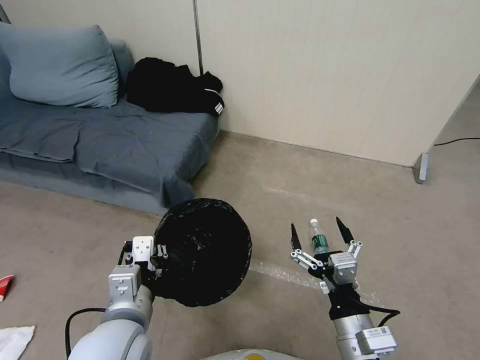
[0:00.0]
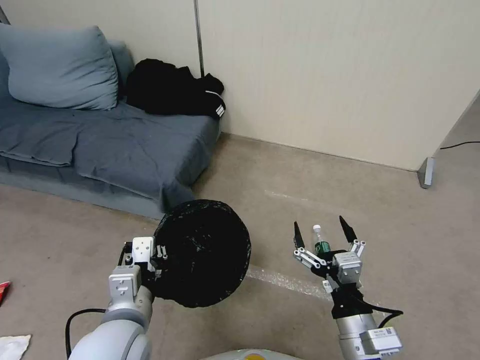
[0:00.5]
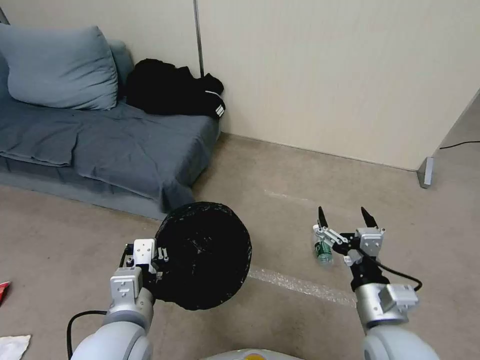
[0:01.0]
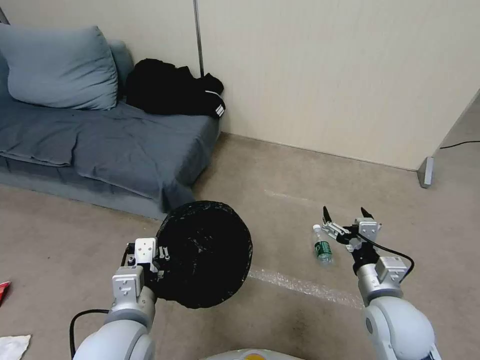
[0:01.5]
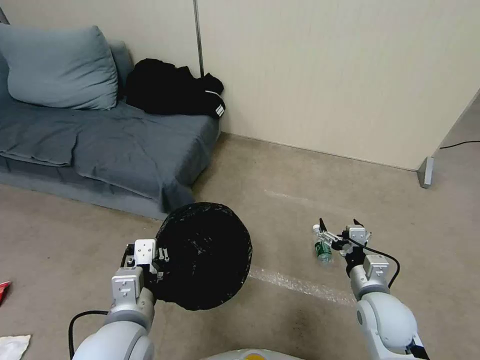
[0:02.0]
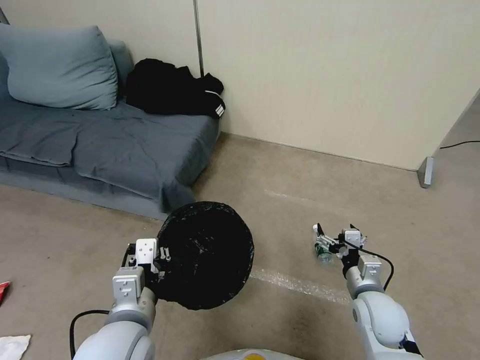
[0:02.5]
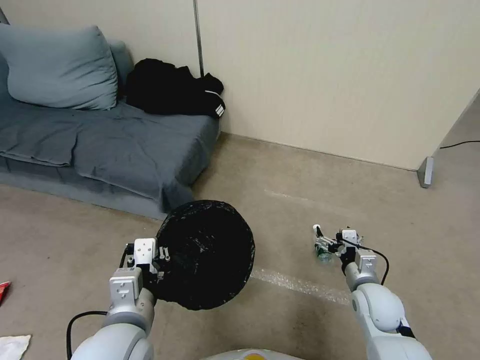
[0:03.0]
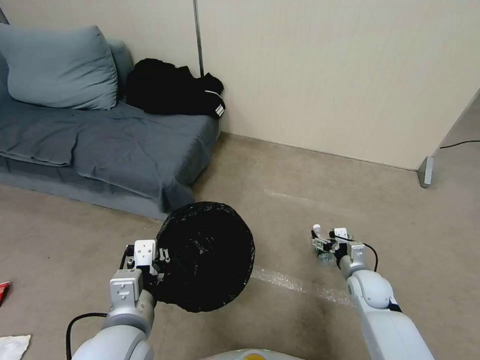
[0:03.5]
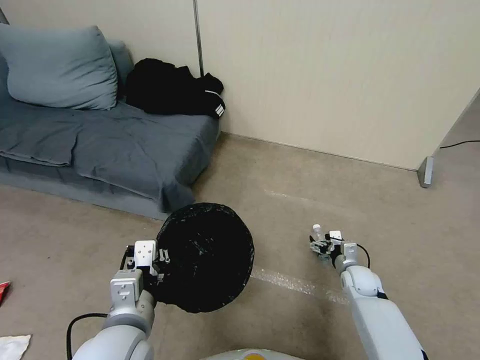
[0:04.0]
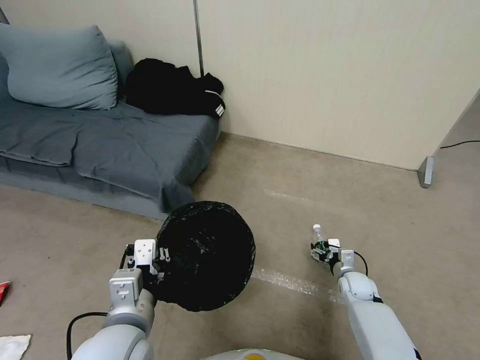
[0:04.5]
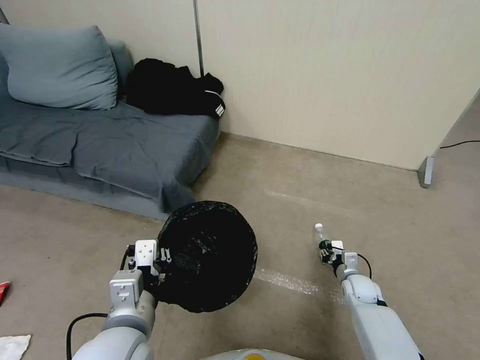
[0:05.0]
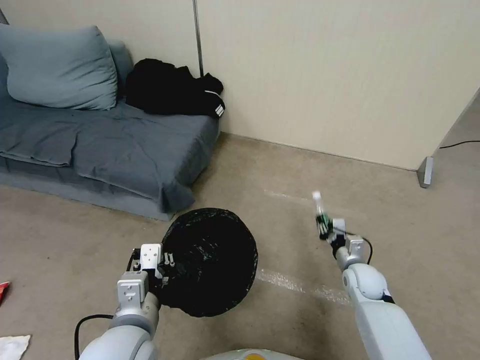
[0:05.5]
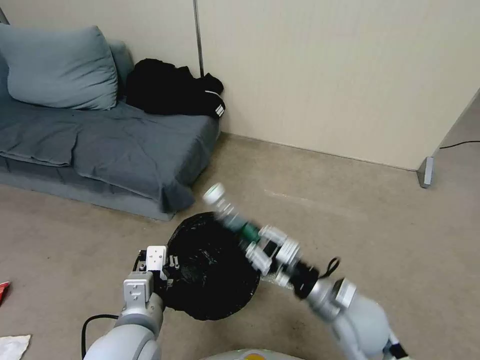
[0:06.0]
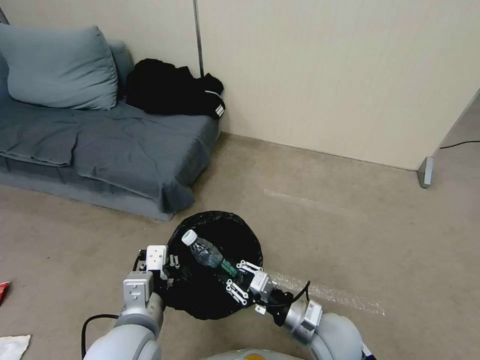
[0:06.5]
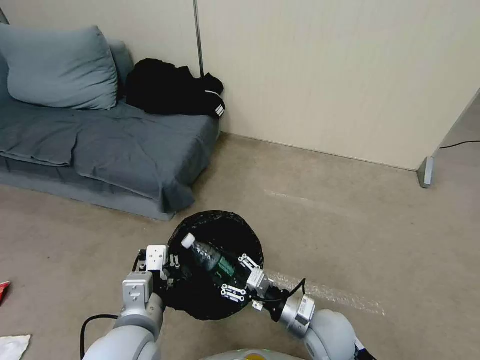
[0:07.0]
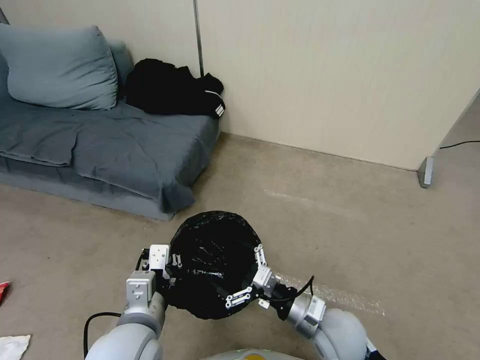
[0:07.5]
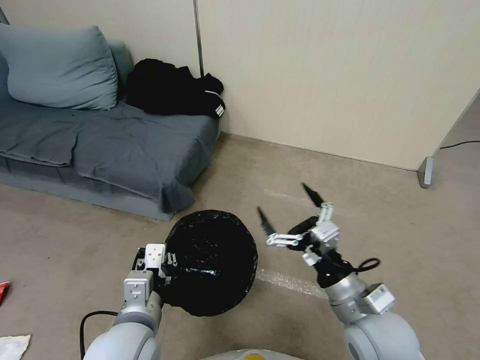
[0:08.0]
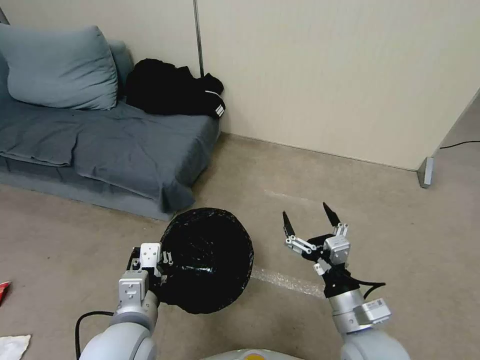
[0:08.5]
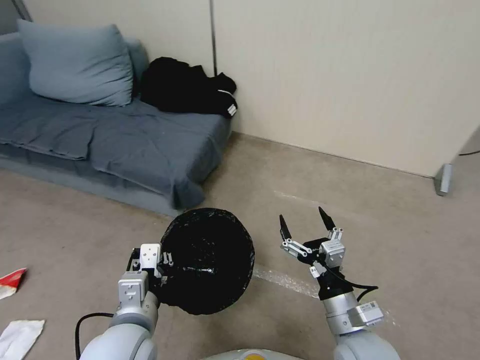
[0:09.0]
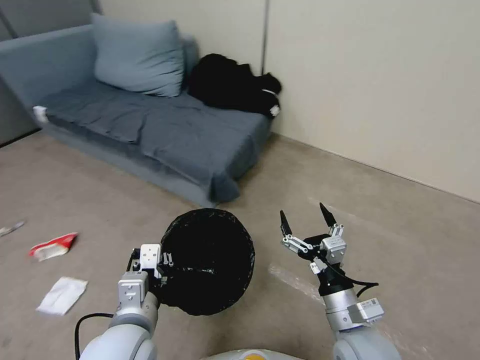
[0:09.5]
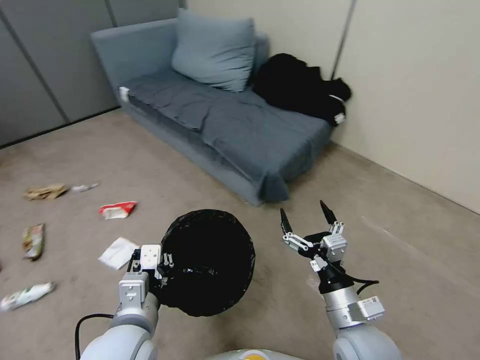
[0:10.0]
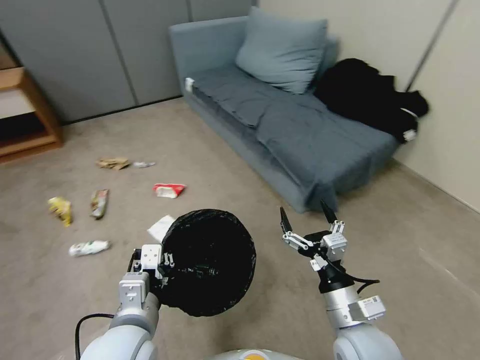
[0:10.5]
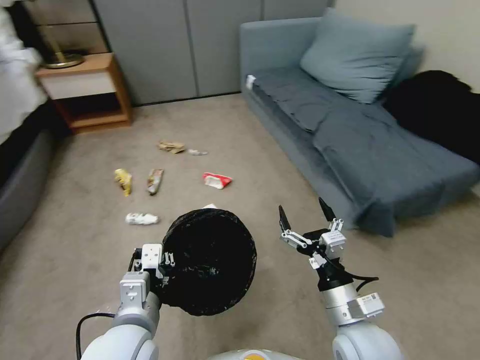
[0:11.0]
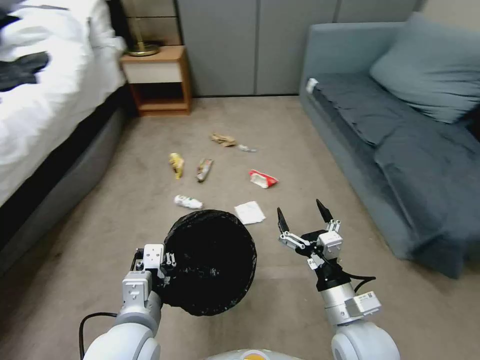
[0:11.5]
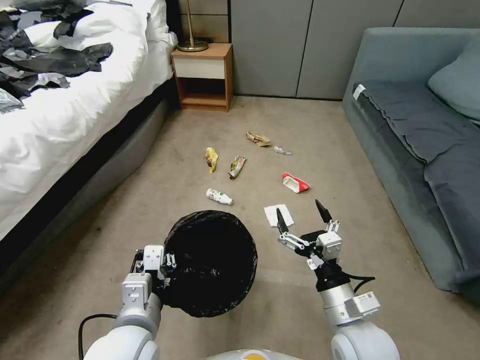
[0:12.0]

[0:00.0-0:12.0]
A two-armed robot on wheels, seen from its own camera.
Task of the whole recording: Pick up the trash bin, then pick up the garbage from the floor and place it into the trash bin.
0:00.0 to 0:02.0: The right gripper goes approximately 15 cm forward, to the right and downward.
0:02.0 to 0:04.0: The right gripper is displaced downward and forward by roughly 20 cm.
0:04.0 to 0:06.0: The right gripper travels upward, backward and to the left by some 25 cm, and closes up.
0:06.0 to 0:08.0: The right gripper is displaced upward by about 5 cm, and opens.
0:08.0 to 0:10.0: The right gripper shifts approximately 5 cm downward.

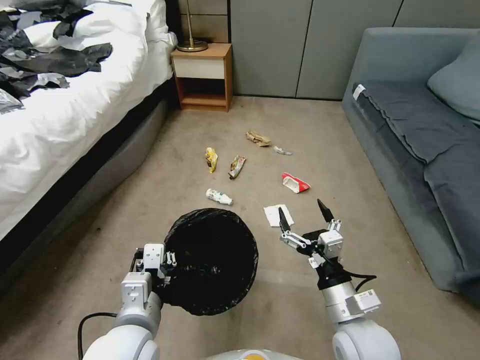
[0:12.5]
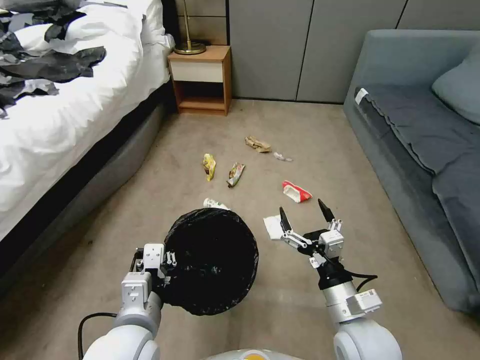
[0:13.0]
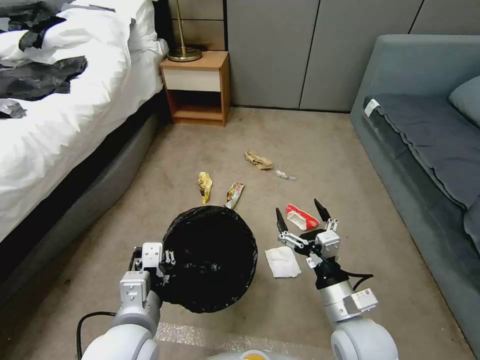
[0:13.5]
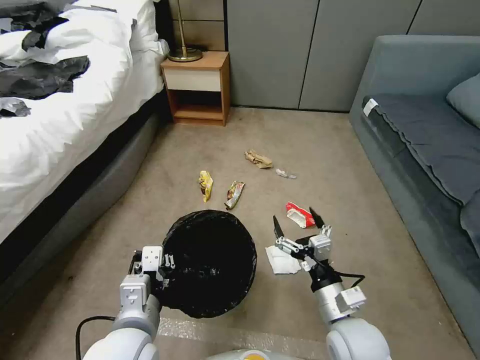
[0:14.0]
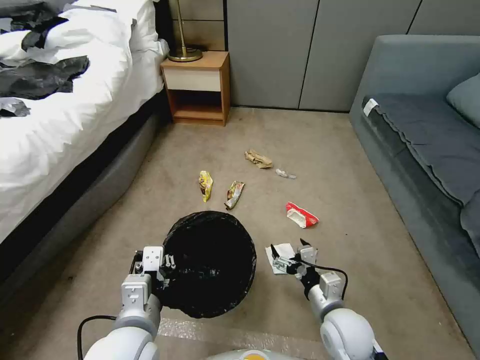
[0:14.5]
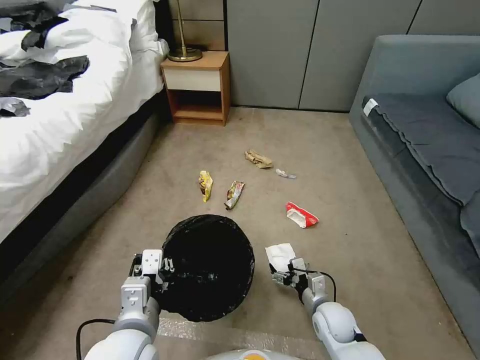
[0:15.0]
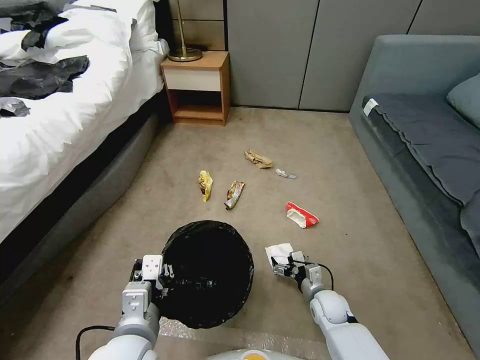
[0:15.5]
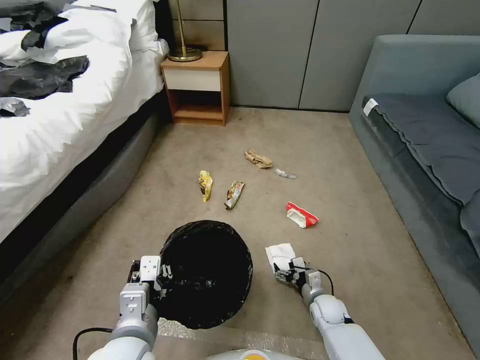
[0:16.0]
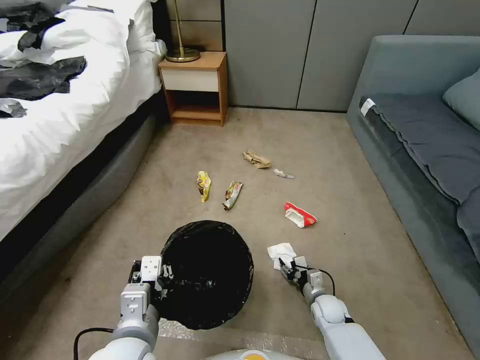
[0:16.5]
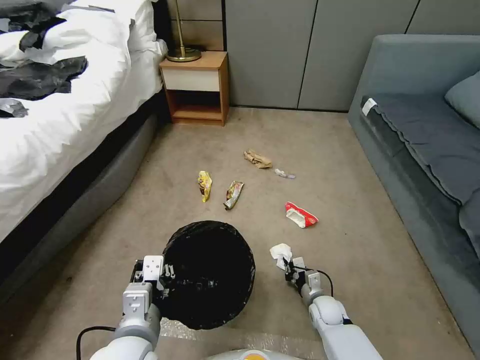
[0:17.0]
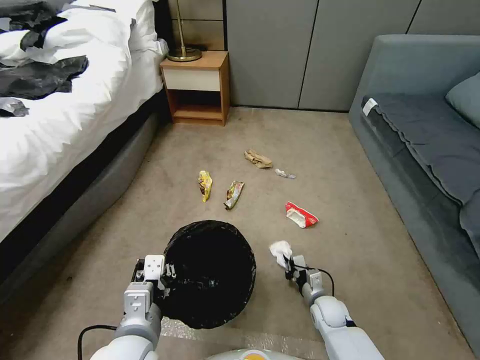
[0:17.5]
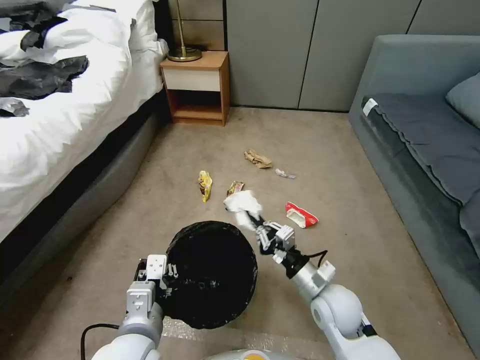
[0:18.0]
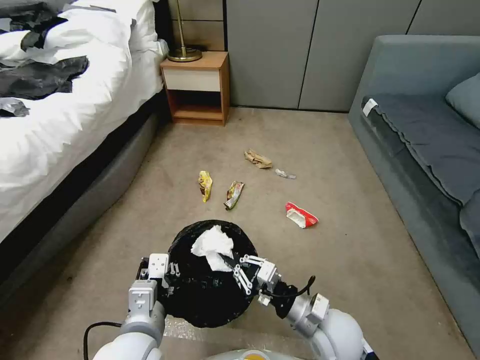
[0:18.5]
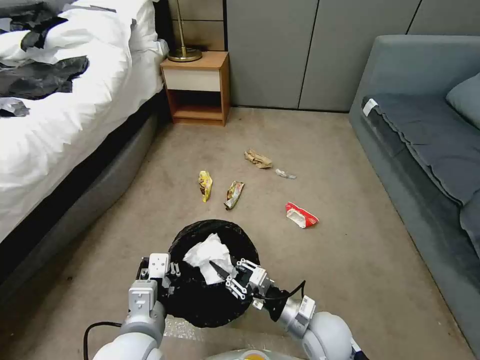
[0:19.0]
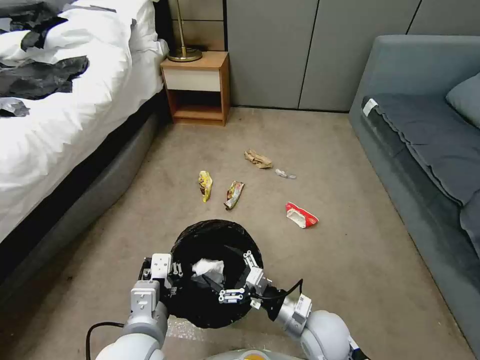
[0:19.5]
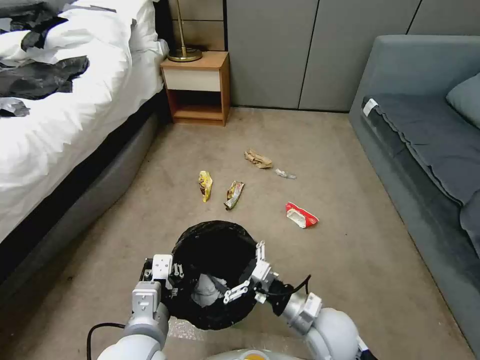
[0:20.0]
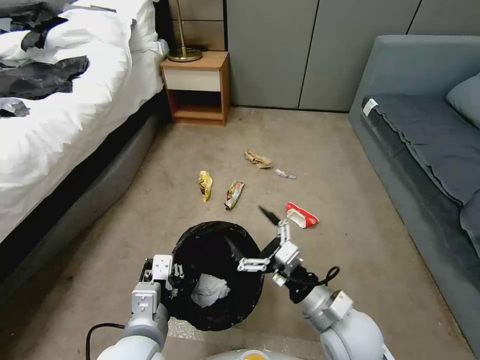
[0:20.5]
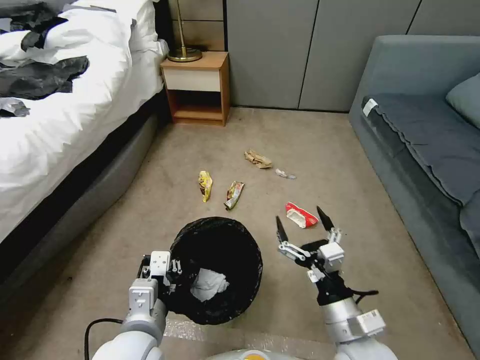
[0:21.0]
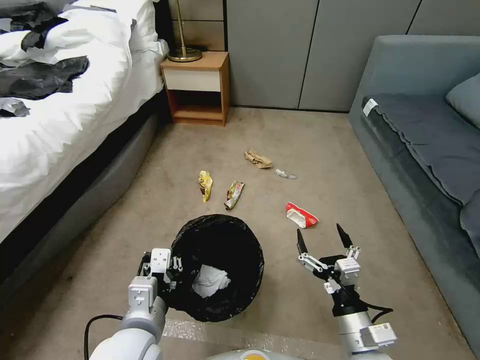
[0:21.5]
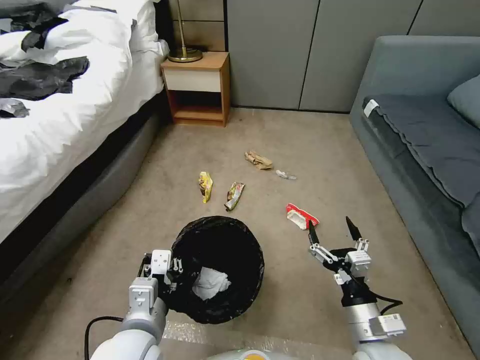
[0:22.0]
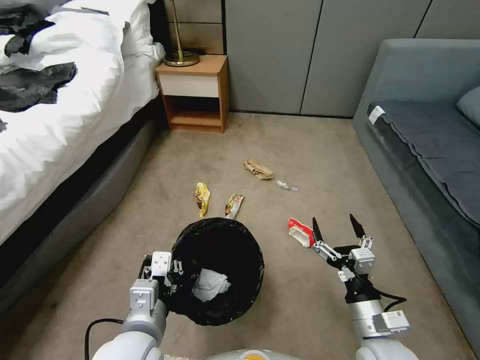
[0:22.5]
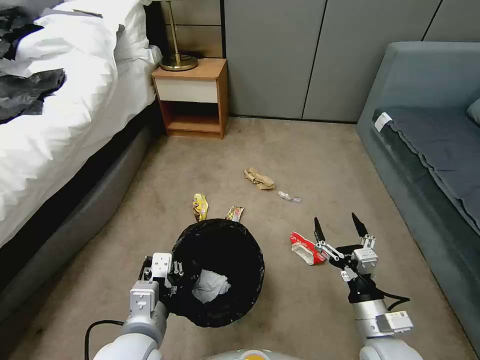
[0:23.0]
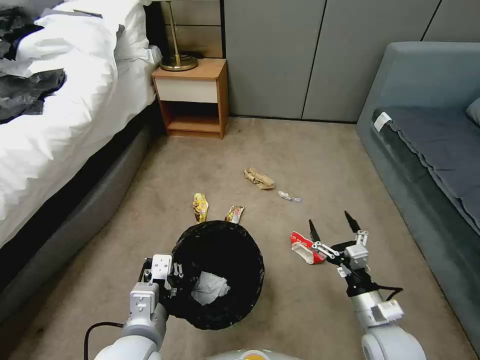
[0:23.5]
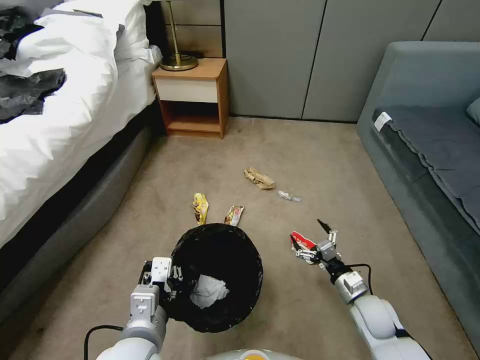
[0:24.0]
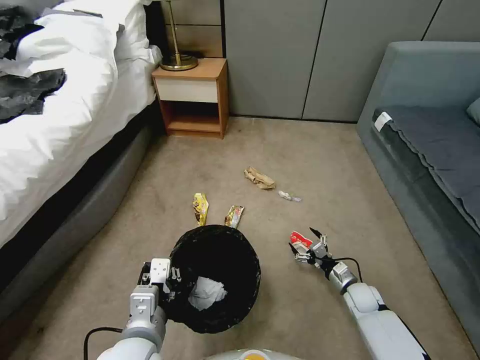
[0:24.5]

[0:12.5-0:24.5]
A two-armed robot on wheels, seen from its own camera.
Task of the whole recording: Pick up the trash bin, then pick up the garbage from the floor and place it into the trash bin.
0:12.5 to 0:14.5: The right gripper shifts about 10 cm downward.
0:14.5 to 0:16.5: The right gripper goes roughly 20 cm downward and forward, and closes its fingers.
0:16.5 to 0:18.5: The right gripper moves upward and backward, about 25 cm, and closes its fingers.
0:18.5 to 0:20.5: The right gripper moves upward, roughly 5 cm, and opens.
0:20.5 to 0:22.5: The right gripper shifts roughly 5 cm to the right.
0:22.5 to 0:24.5: The right gripper heads downward, forward and to the right, covering about 30 cm.

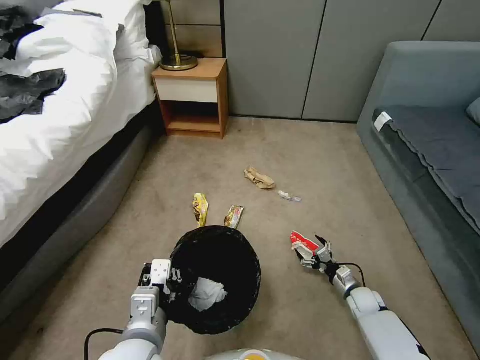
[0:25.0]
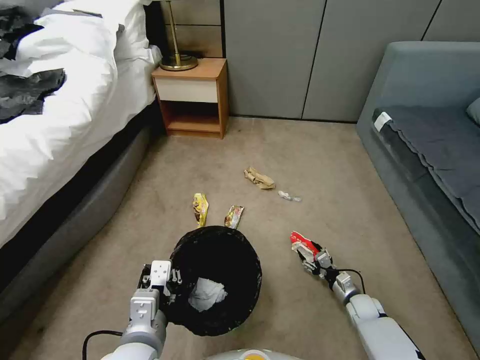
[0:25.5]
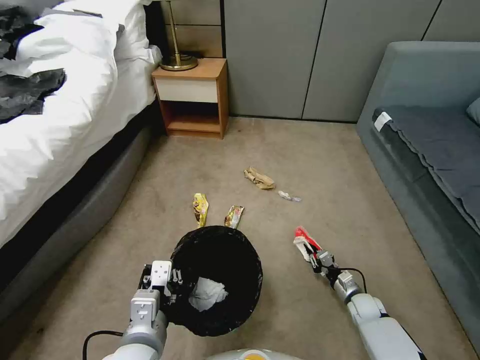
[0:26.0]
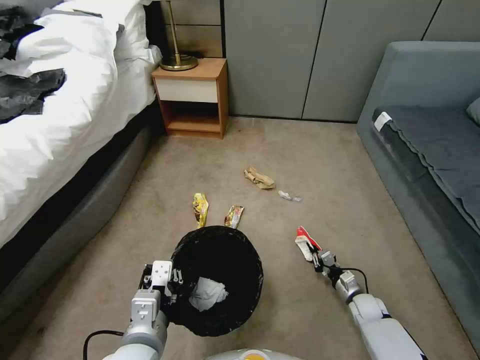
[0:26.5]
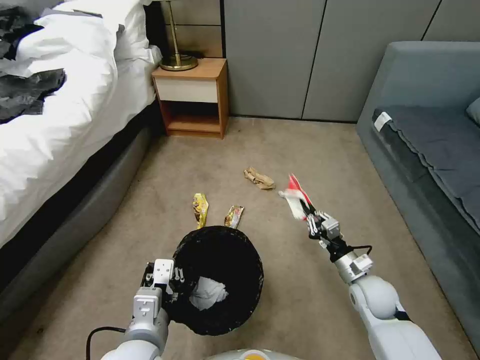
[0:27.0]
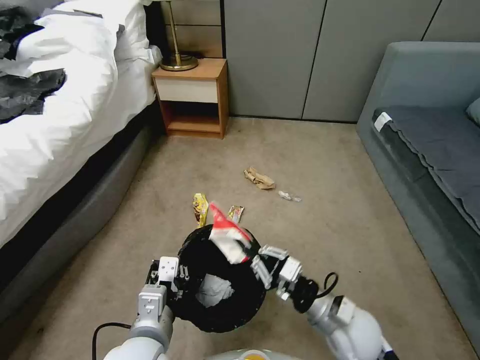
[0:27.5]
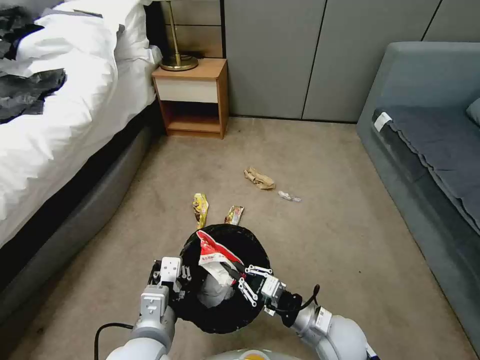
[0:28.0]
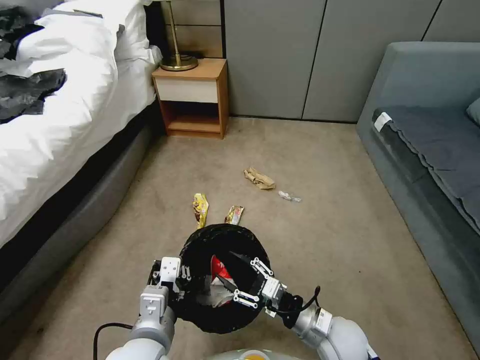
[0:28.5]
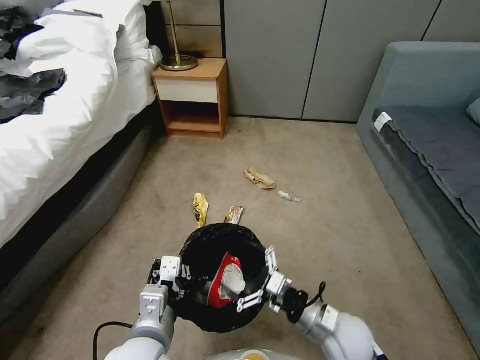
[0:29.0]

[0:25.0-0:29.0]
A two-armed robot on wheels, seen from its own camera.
Task of the whole recording: Pick up the trash bin, then pick up the garbage from the floor and place it into the trash bin.
0:25.0 to 0:27.0: The right gripper is displaced upward by roughly 20 cm, and closes up.
0:27.0 to 0:29.0: The right gripper shifts approximately 15 cm to the left and backward, and opens its fingers.
